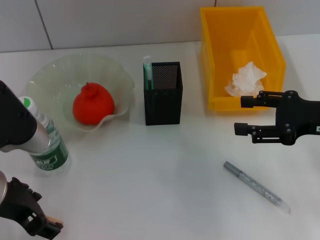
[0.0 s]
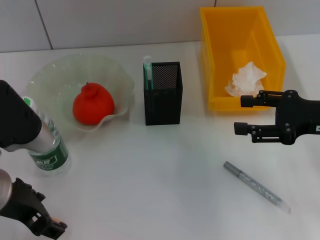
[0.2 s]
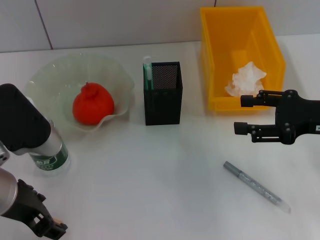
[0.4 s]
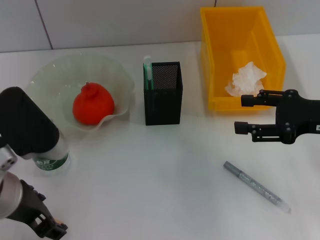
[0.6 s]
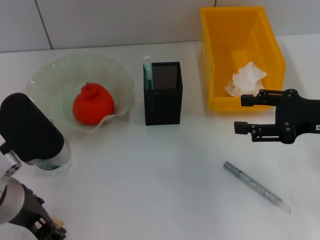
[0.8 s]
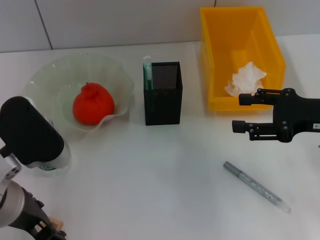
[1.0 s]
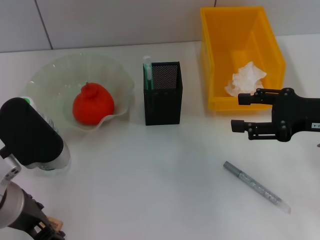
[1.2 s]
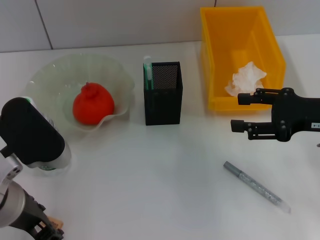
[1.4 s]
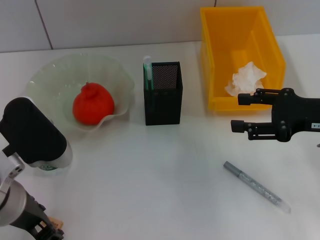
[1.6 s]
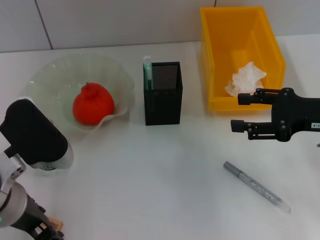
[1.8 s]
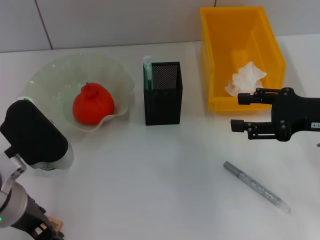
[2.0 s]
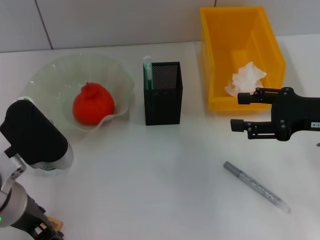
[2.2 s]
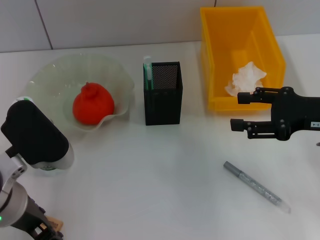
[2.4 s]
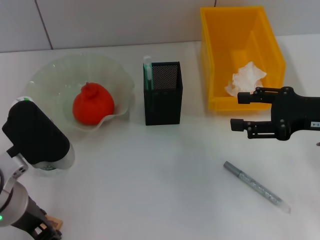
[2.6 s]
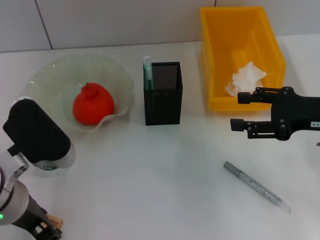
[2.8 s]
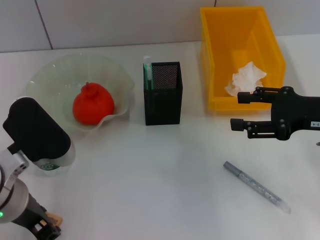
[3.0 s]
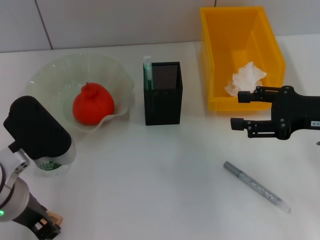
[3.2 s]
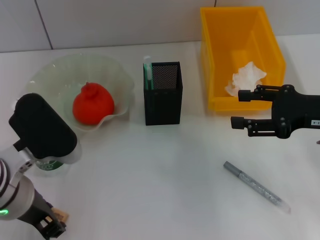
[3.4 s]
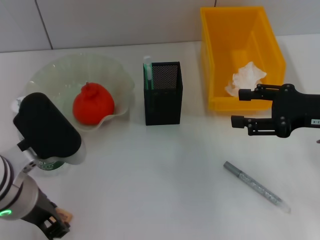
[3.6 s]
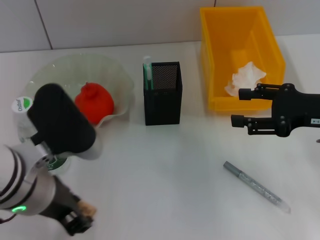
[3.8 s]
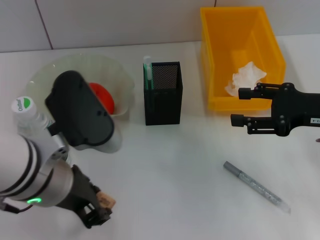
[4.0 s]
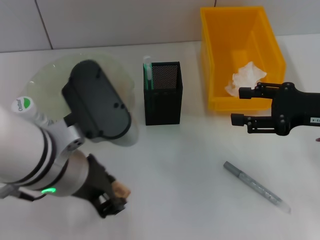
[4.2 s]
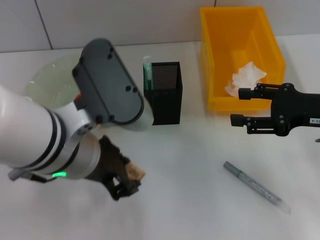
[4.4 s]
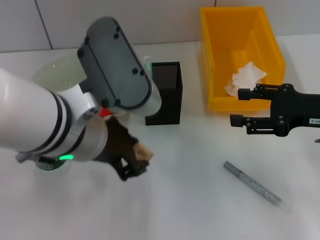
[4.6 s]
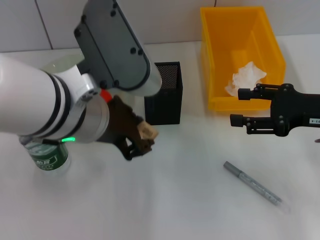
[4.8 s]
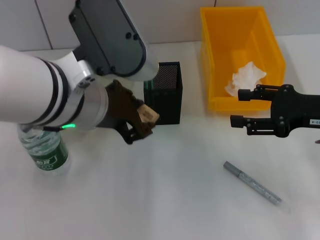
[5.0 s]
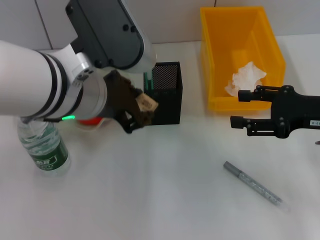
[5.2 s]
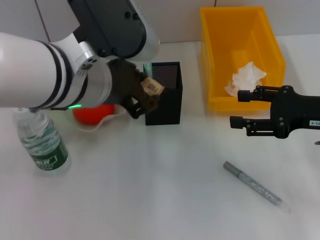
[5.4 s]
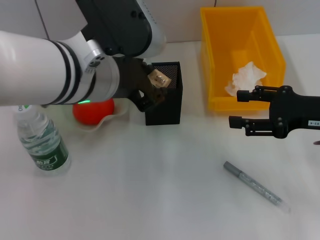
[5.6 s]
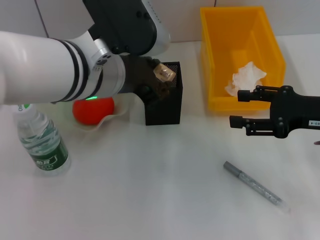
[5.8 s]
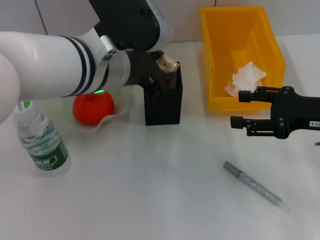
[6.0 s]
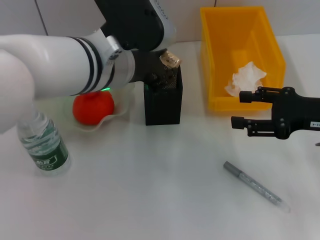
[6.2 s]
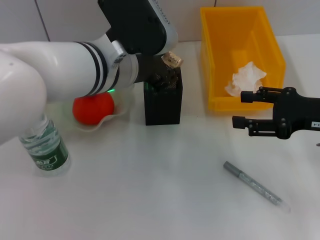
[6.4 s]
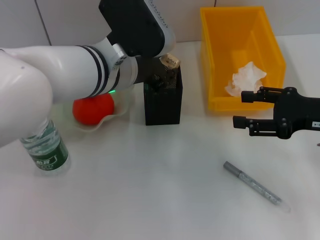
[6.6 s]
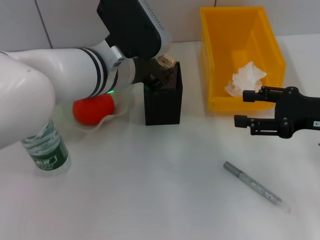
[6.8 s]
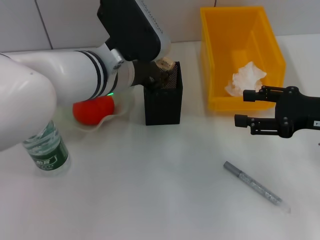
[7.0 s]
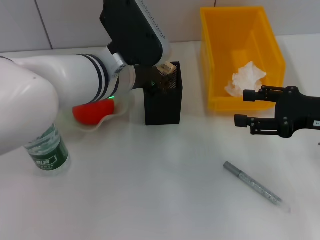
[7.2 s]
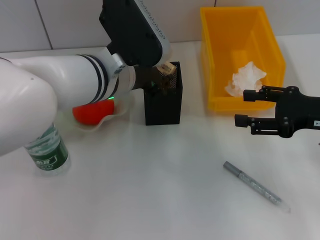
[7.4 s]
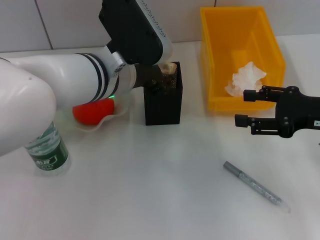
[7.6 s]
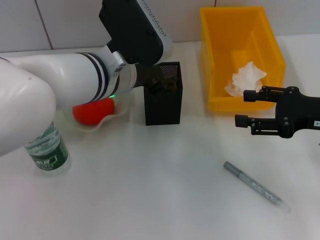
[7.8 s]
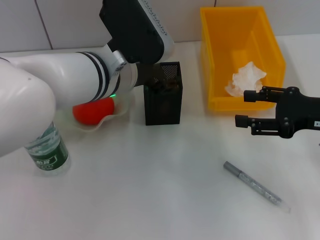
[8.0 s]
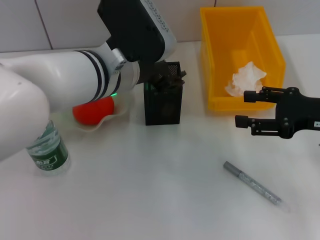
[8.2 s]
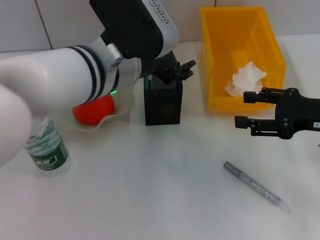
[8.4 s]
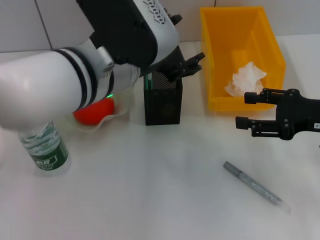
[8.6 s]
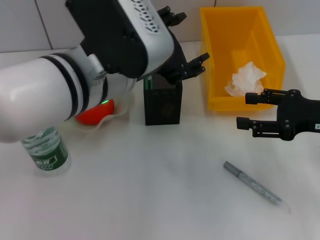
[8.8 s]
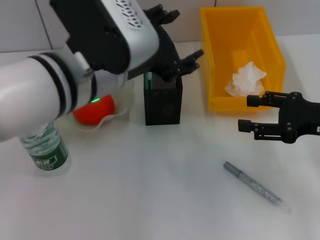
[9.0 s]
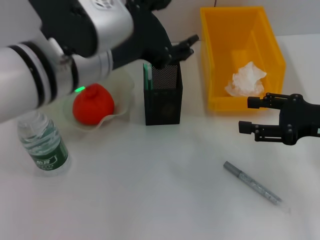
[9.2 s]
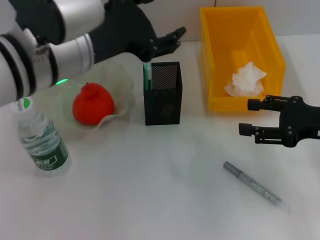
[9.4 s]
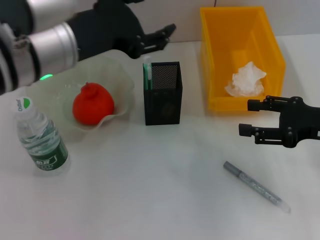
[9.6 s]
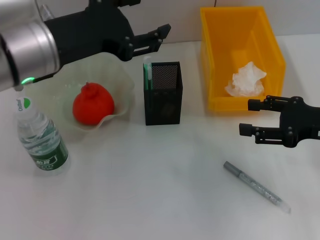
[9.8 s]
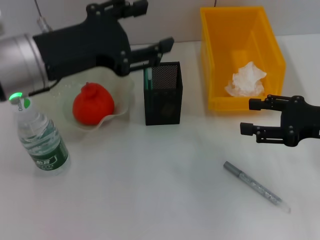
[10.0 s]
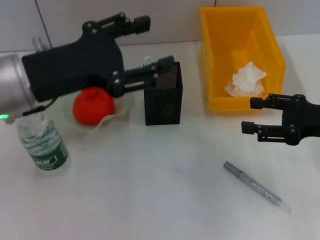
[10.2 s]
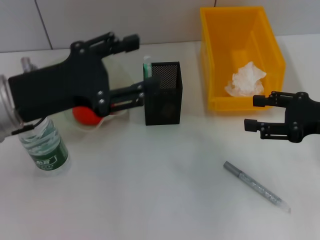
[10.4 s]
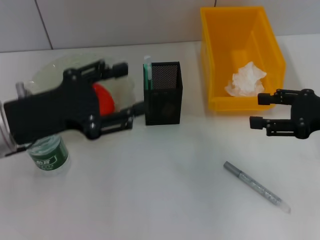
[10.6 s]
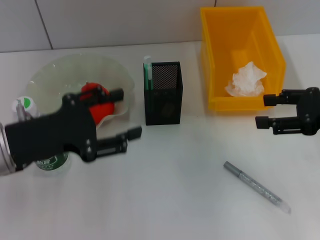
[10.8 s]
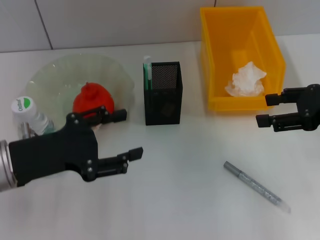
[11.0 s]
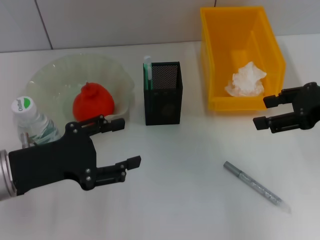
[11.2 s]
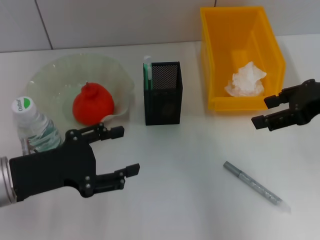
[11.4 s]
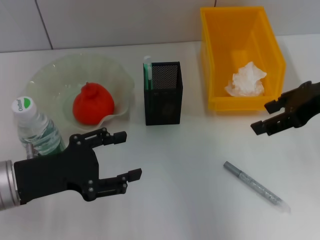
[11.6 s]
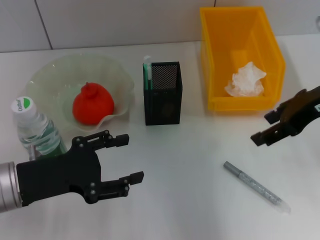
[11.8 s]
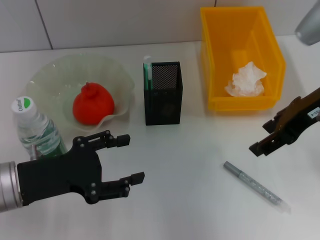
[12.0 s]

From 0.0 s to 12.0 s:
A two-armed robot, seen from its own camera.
Step, from 0.0 s to 2.8 s: Grab the eraser with the left hand.
Step, from 3.0 s to 8.2 s: Place the eraser into the pen holder with the left hand.
From 0.0 s to 1.6 s: The grippers make only small movements.
From 1.6 s to 3.0 s: Neither gripper changes place.
From 3.0 s to 4.4 s: The left gripper travels to the right and upward by some 10 cm.
From 4.4 s to 6.0 s: The left gripper shifts roughly 5 cm forward.
From 6.0 s to 7.6 s: The left gripper shifts by roughly 5 cm.
From 7.6 s to 9.0 s: The left gripper heads backward and upward, covering approximately 10 cm, and opens up.
From 9.0 s to 10.4 s: The left gripper travels to the left by roughly 10 cm.
From 10.4 s to 12.0 s: The left gripper moves downward, roughly 10 cm, while the right gripper is displaced upward and to the left by about 10 cm.

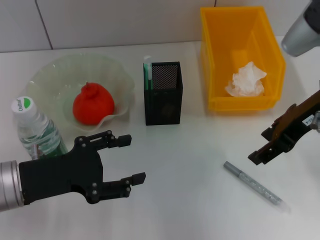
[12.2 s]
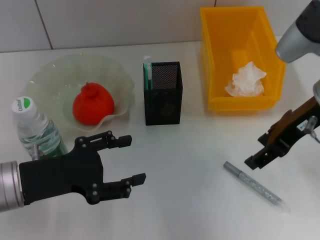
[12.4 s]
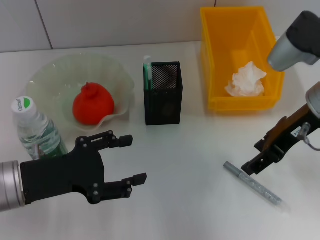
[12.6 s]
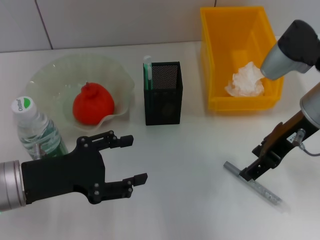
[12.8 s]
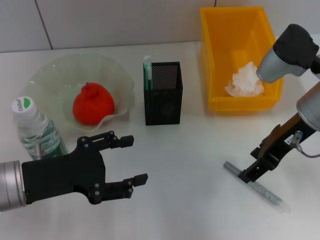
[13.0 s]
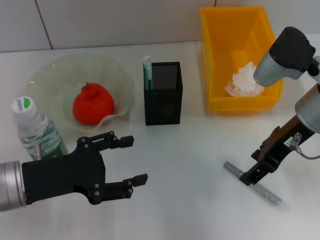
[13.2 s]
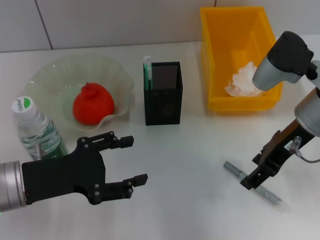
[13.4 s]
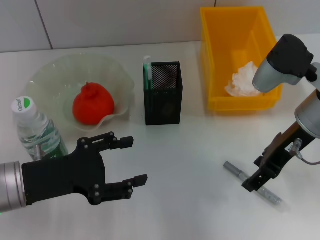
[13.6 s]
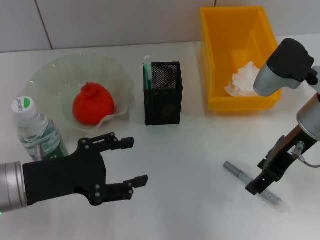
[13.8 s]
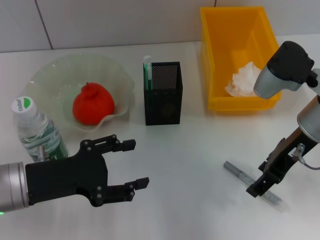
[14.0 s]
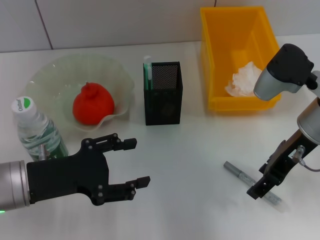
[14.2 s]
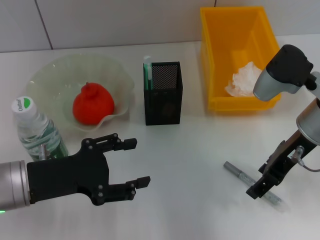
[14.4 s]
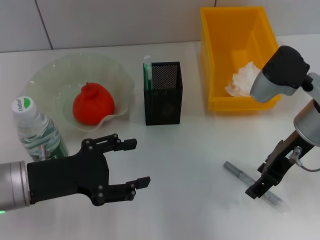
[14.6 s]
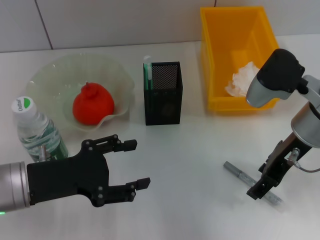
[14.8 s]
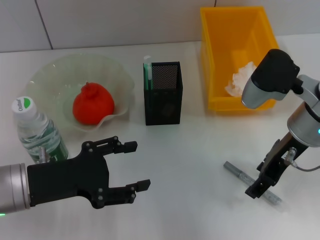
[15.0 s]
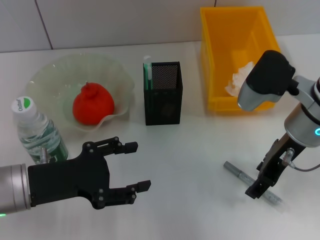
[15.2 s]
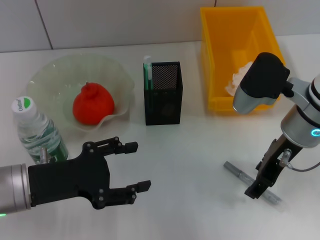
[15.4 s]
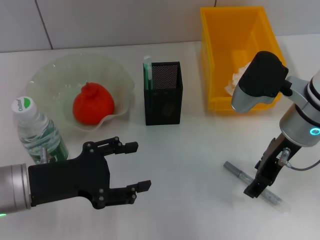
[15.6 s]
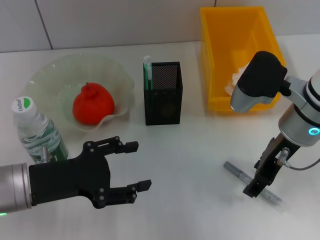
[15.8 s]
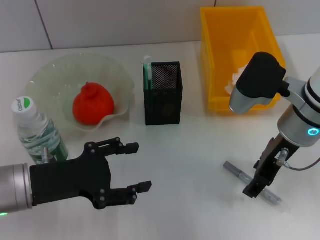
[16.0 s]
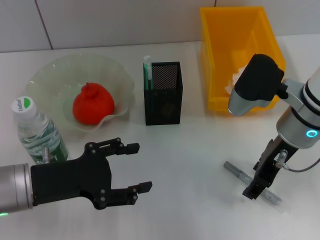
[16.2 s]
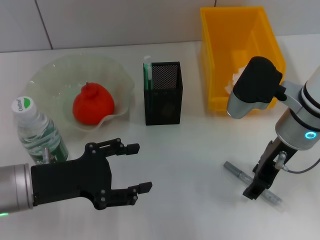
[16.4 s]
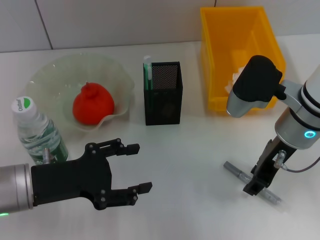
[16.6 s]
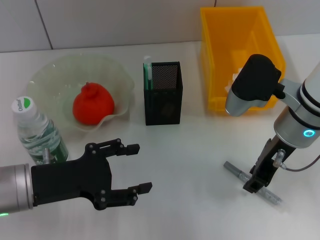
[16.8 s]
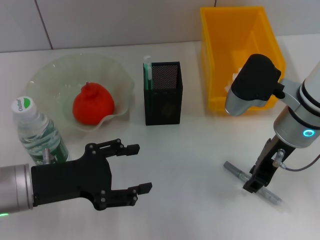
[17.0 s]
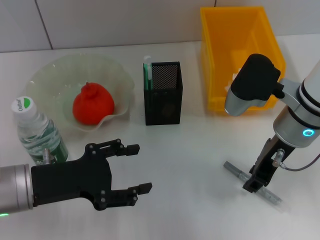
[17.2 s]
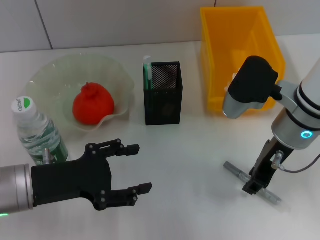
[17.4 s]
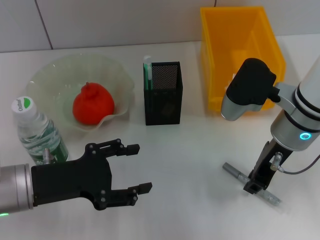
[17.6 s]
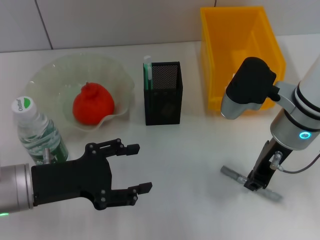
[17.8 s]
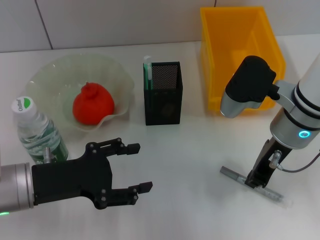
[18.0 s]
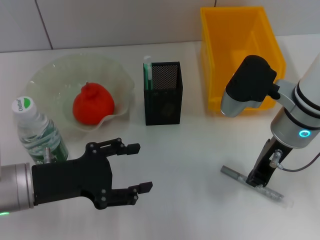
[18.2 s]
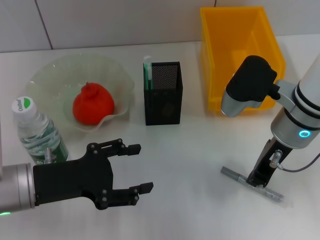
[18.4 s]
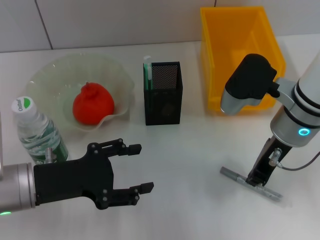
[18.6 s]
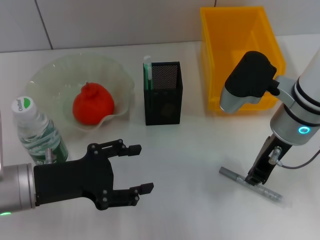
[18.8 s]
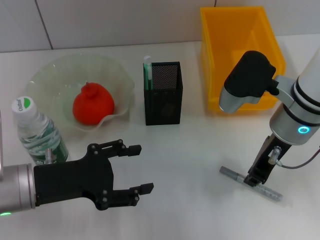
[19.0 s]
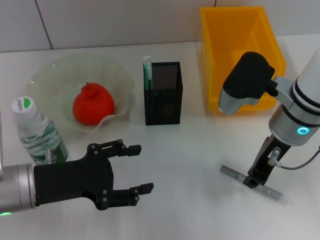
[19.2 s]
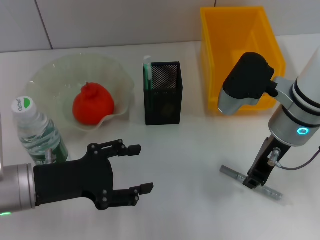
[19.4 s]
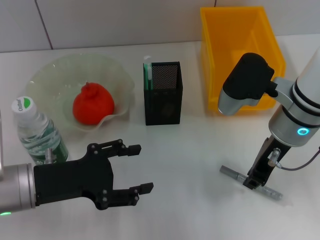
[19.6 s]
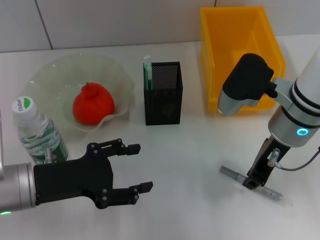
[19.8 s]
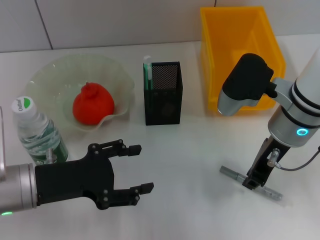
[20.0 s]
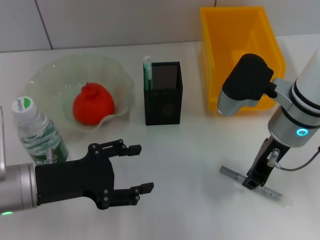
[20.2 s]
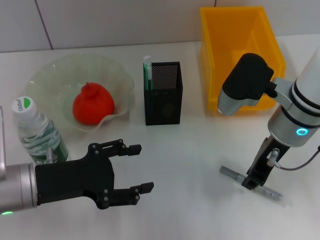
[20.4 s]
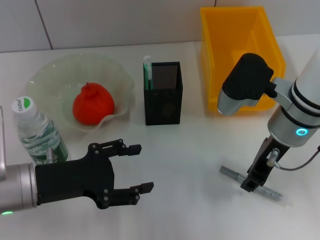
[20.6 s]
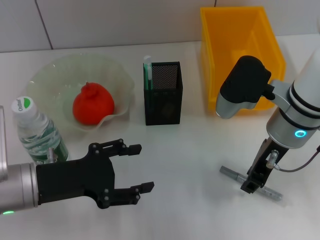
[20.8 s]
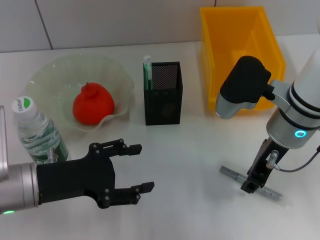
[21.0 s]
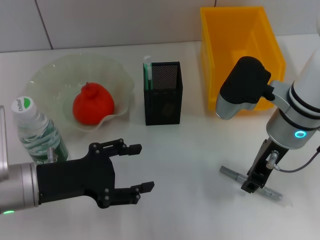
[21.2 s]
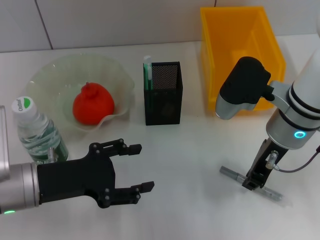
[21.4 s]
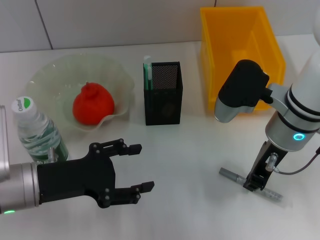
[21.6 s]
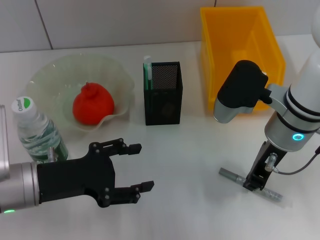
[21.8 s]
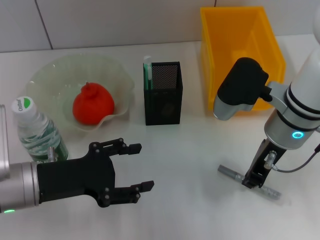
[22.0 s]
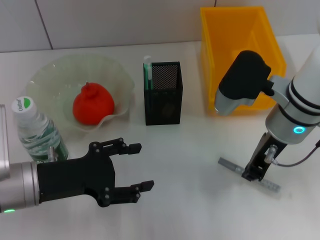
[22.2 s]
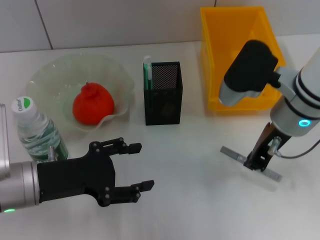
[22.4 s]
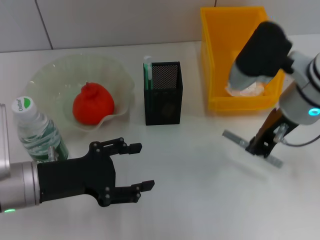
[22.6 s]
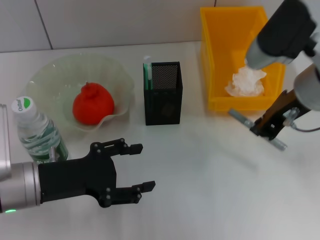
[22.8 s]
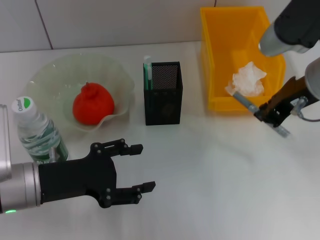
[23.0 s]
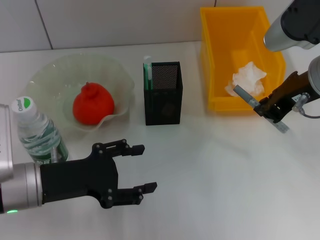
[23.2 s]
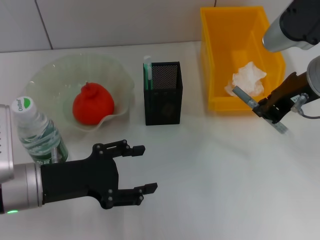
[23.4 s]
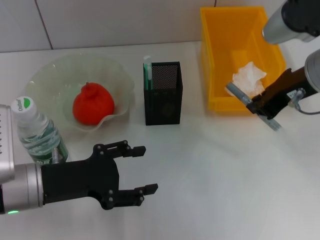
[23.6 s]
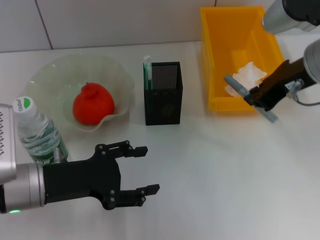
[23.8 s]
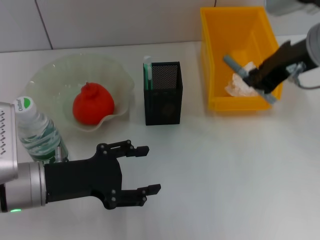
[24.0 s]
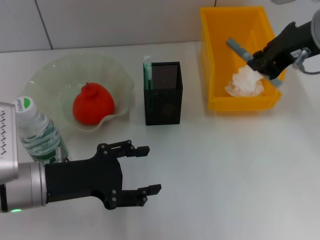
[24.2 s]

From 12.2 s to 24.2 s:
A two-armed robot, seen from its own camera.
Step, from 12.2 s to 21.6 s: Grab the gray glue with the right hand.
From 12.2 s to 13.8 s: The right gripper is displaced downward by roughly 5 cm.
From 13.8 s to 15.2 s: The grippers move only a little.
From 15.2 s to 16.6 s: Neither gripper changes place.
From 16.6 s to 18.2 s: The right gripper closes its fingers.
From 18.2 s to 21.2 s: The two grippers keep their place.
From 21.2 s to 22.6 s: The grippers move only a little.
From 22.6 s to 24.2 s: The right gripper shifts some 10 cm upward.
